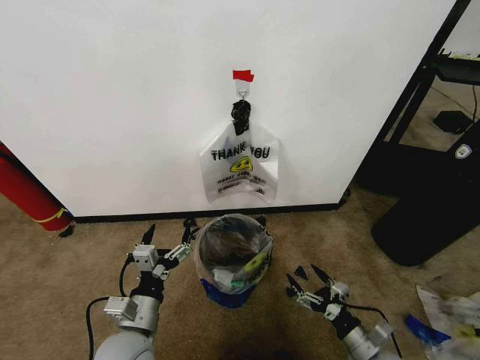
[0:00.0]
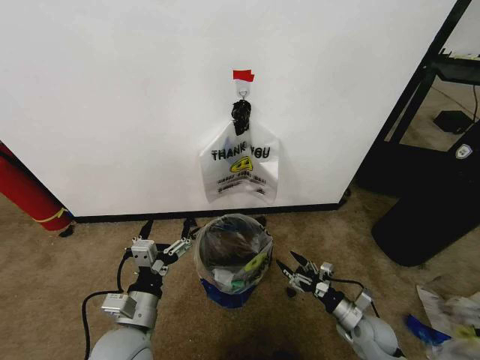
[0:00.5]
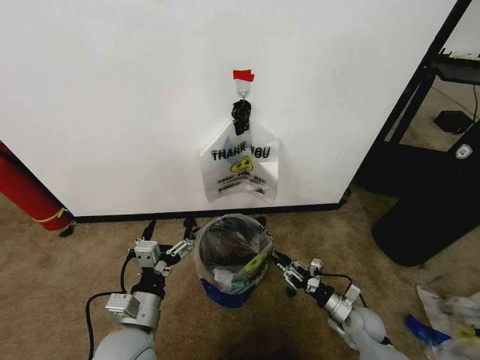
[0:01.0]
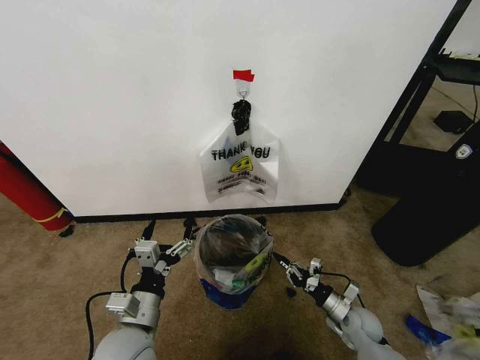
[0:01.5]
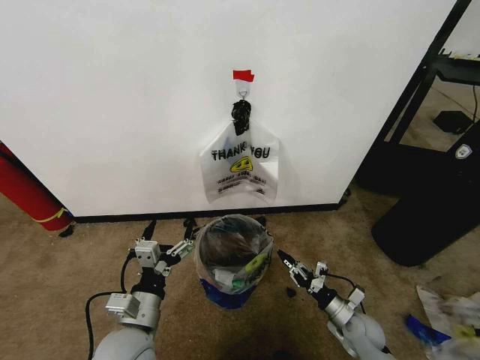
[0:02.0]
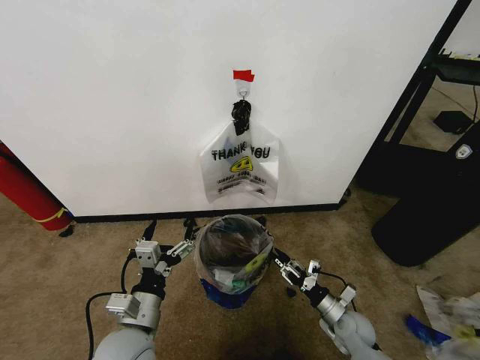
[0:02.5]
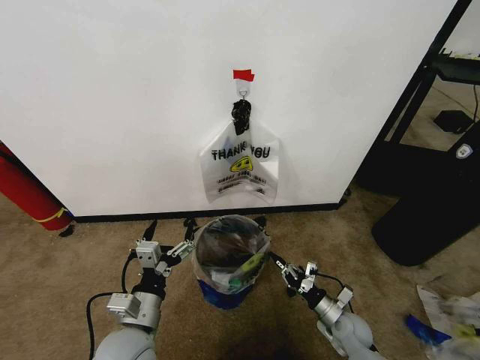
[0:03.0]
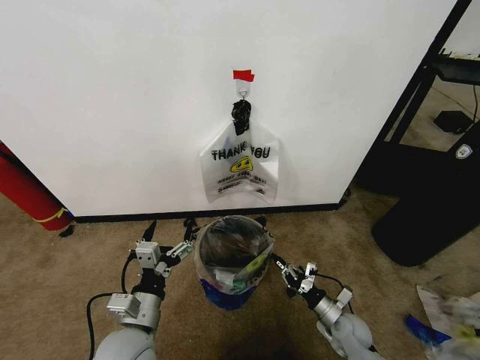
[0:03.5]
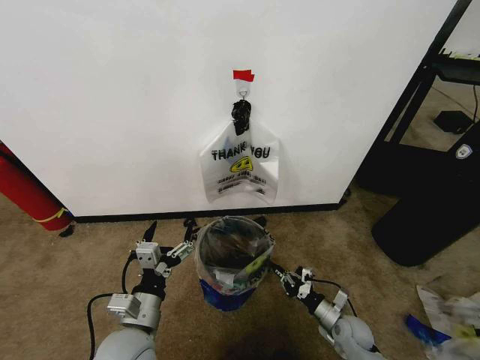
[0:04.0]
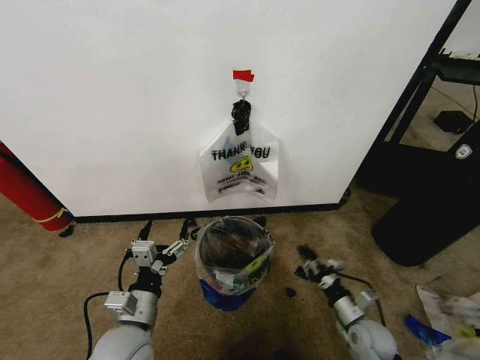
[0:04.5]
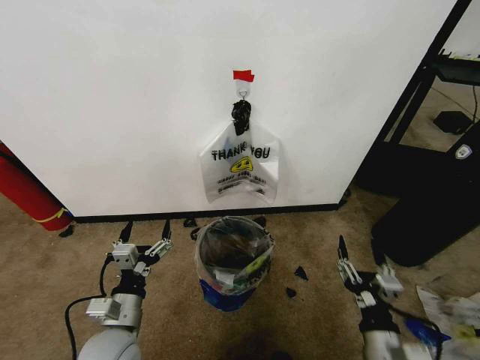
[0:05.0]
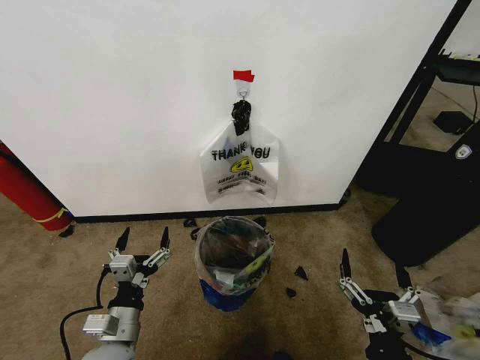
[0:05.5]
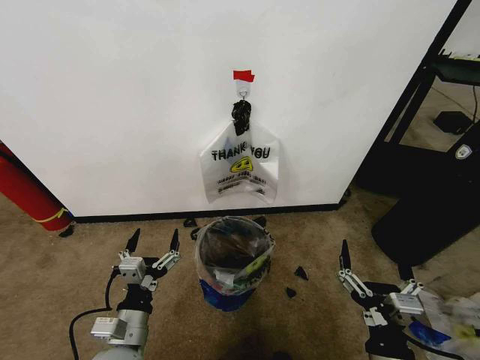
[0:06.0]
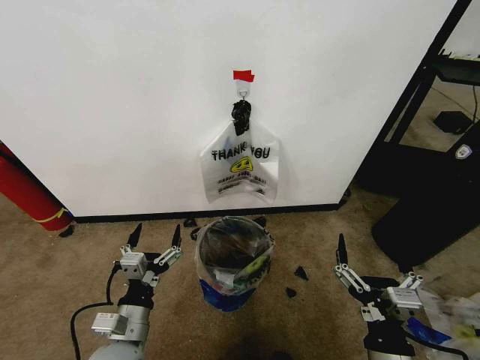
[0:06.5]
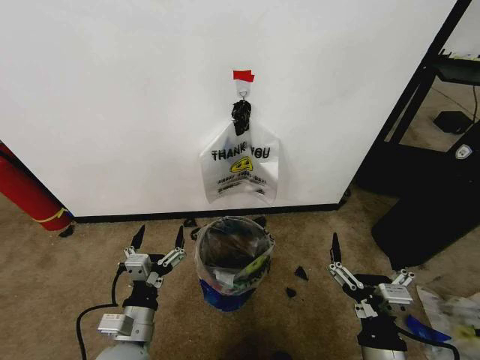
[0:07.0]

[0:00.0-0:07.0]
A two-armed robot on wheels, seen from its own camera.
Task of the whole recording: Pick up the garbage bag from the wall and place it over the trash bin.
0:00.0 to 0:02.0: The right gripper shifts some 10 cm forward and downward, and closes its fingers.
0:02.0 to 0:03.5: The grippers move only a little.
0:03.5 to 0:05.0: The right gripper goes roughly 25 cm upward and backward, and opens its fingers.
0:05.0 to 0:07.0: The right gripper changes place by some 5 cm.

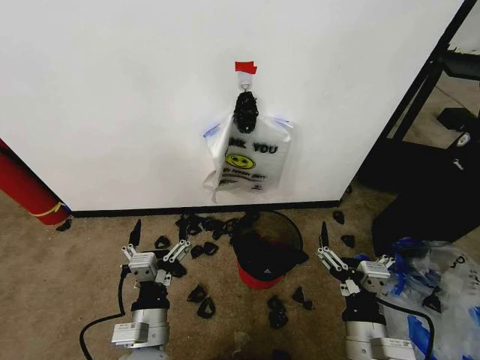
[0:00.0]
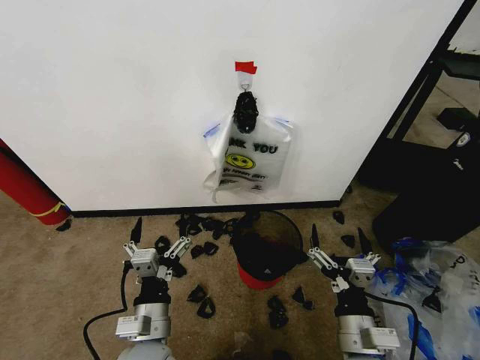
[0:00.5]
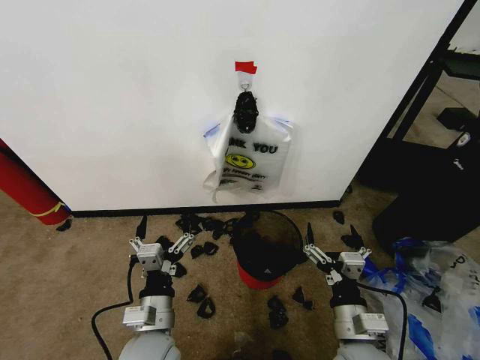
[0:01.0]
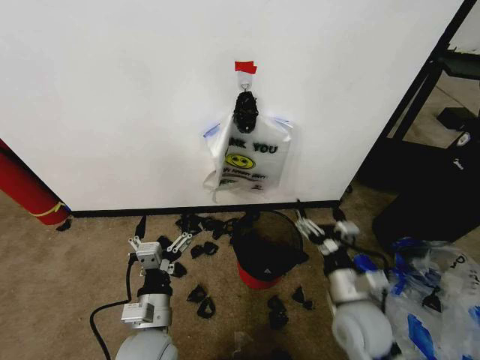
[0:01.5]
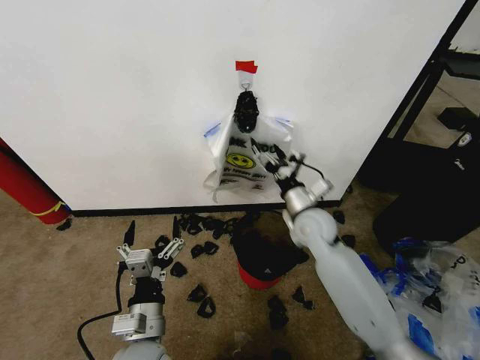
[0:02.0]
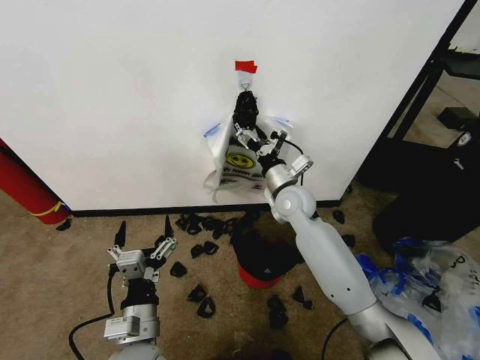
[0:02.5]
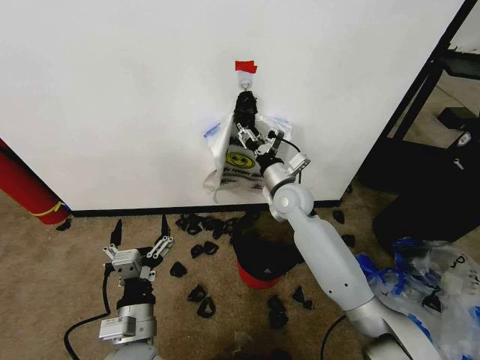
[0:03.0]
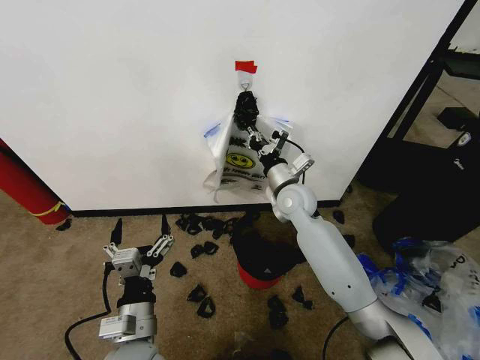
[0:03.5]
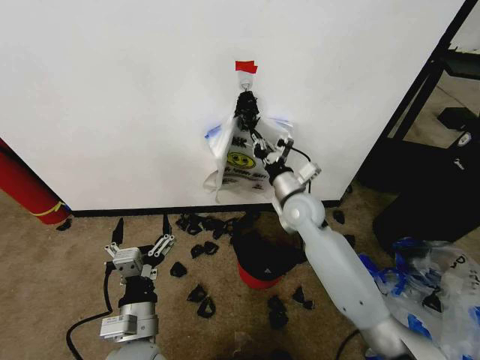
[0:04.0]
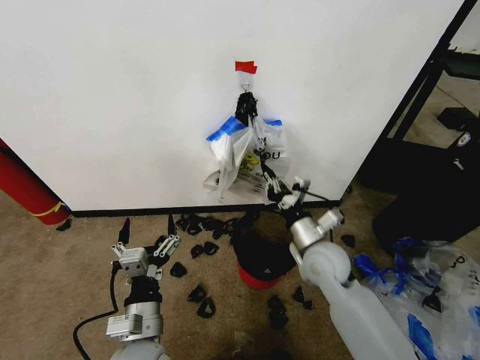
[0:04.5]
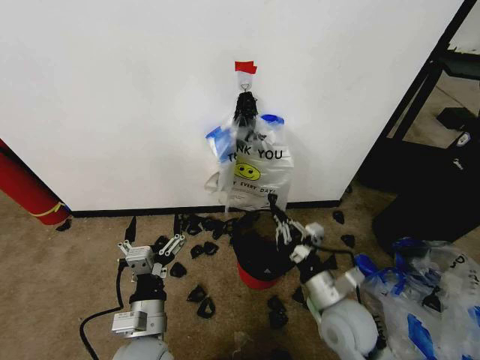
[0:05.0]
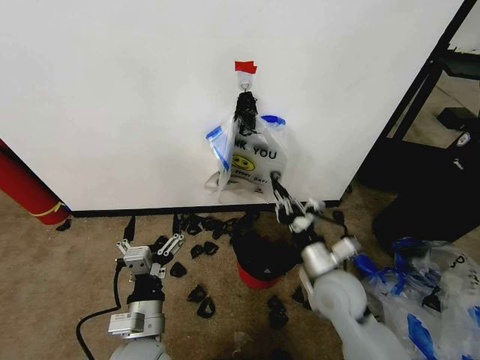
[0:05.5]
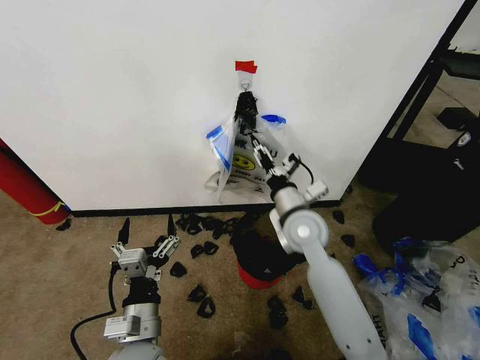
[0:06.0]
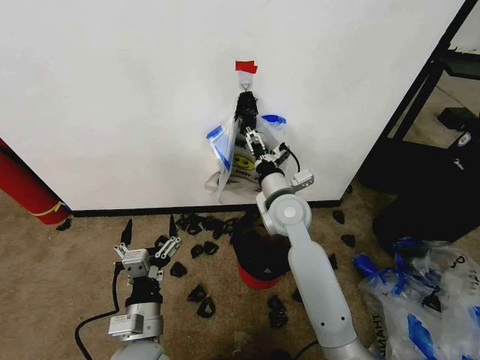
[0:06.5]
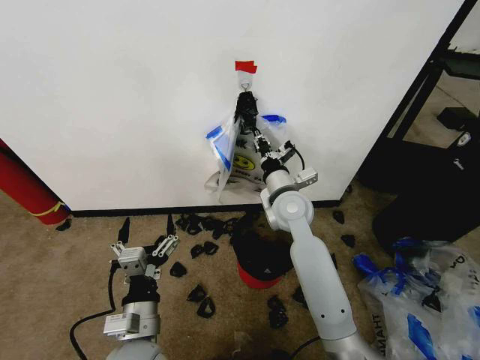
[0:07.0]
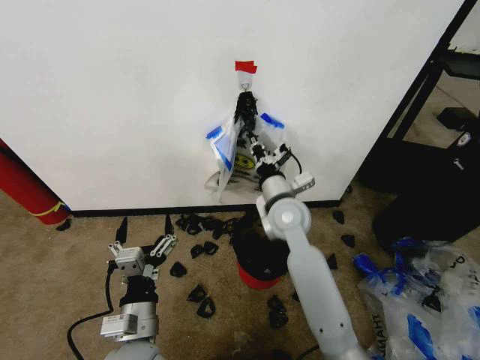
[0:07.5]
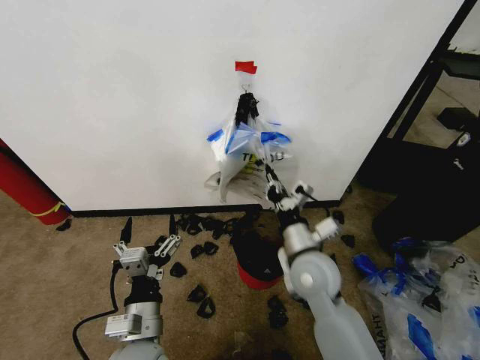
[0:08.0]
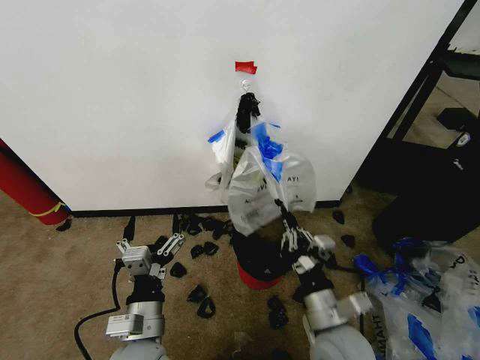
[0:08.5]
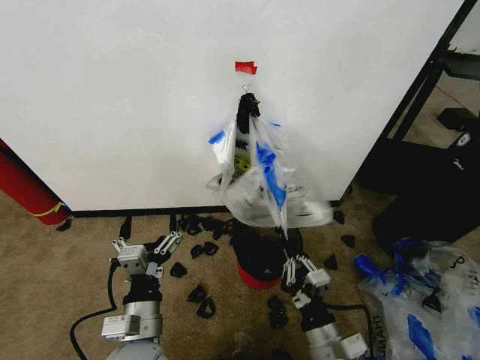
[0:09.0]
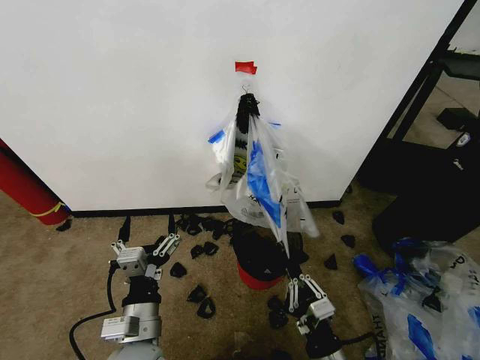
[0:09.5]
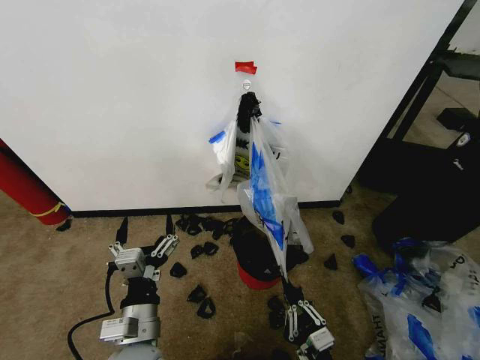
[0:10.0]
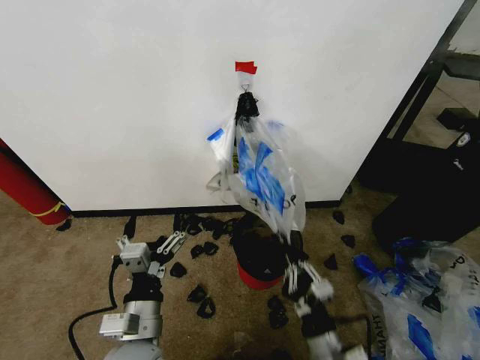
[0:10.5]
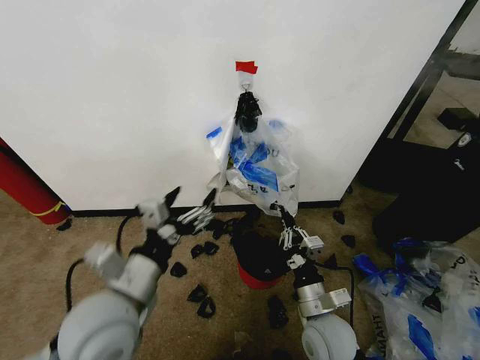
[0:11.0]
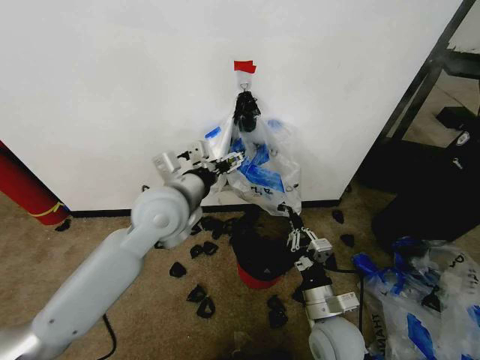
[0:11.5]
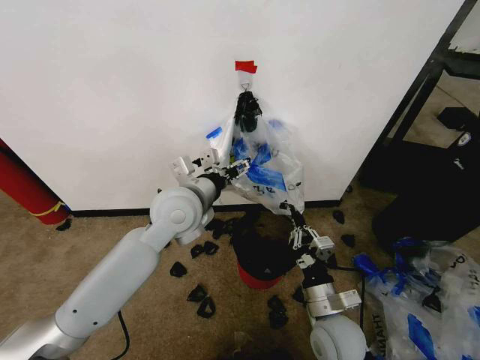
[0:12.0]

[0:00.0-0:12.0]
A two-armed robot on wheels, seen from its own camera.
Task of the whole recording: Pick up the garbage bag from the wall and place it over the trash bin.
0:02.0 to 0:04.0: The right gripper closes up.
0:04.0 to 0:06.0: The right gripper travels backward and back again, about 20 cm each way, and opens its fingers.
0:06.0 to 0:08.0: The right gripper heads backward, covering roughly 10 cm, and closes up.
0:08.0 to 0:10.0: The right gripper shifts about 25 cm backward and downward.
0:10.0 to 0:12.0: The left gripper moves forward and upward, roughly 25 cm, while the right gripper moves forward and upward, about 15 cm.

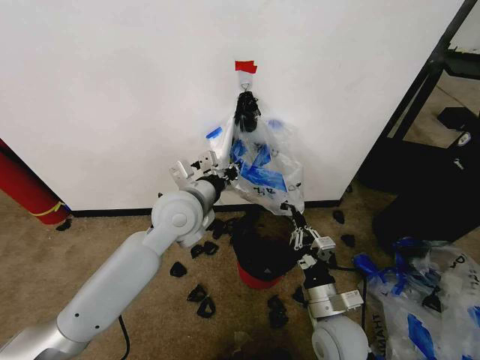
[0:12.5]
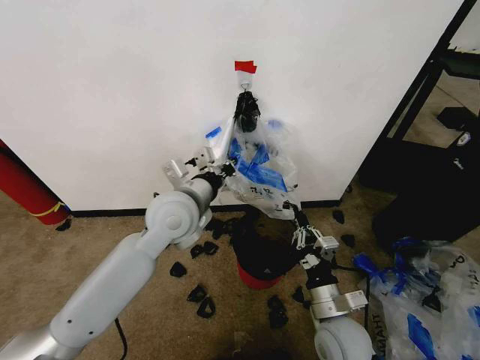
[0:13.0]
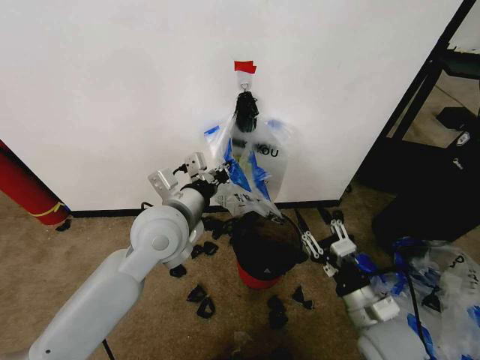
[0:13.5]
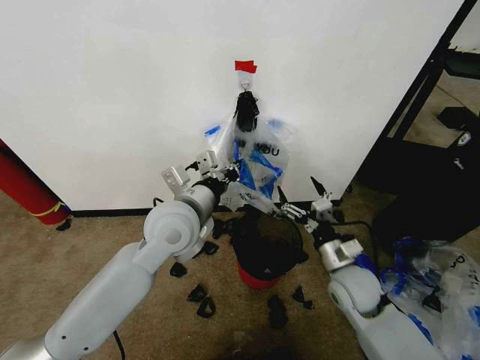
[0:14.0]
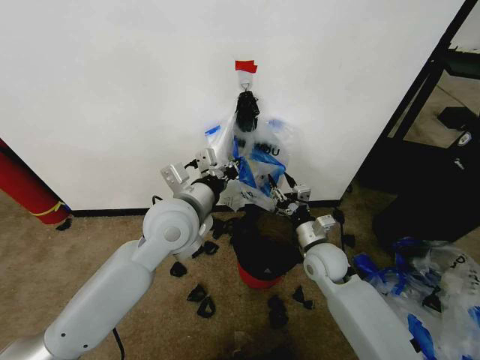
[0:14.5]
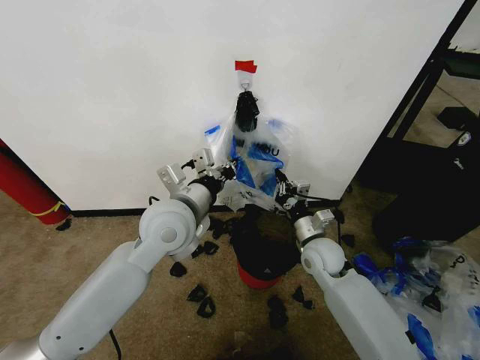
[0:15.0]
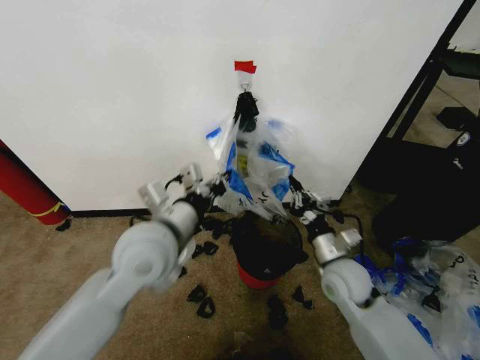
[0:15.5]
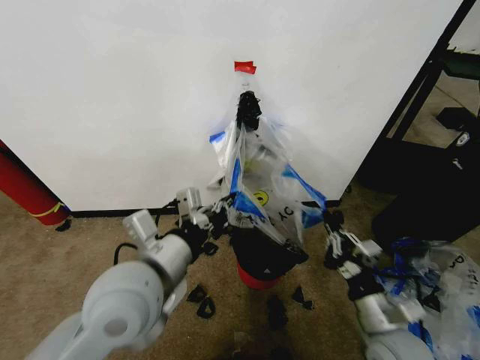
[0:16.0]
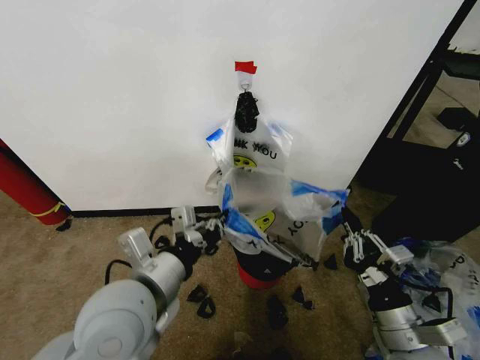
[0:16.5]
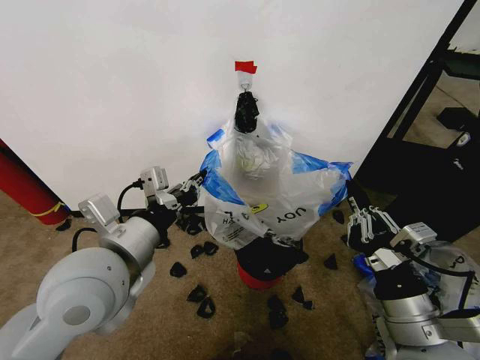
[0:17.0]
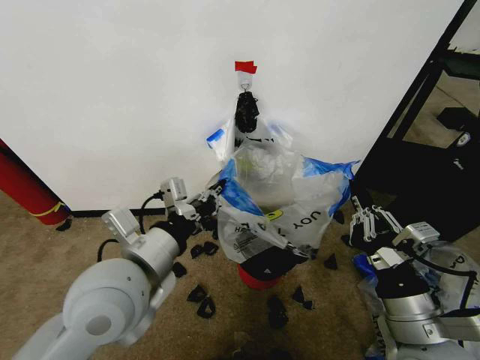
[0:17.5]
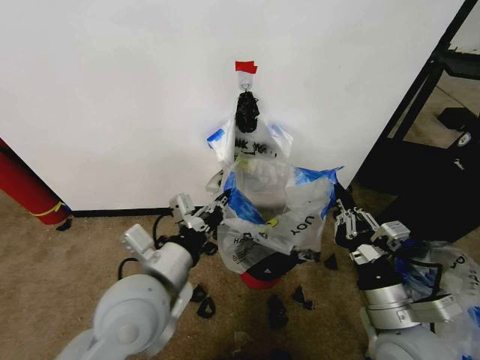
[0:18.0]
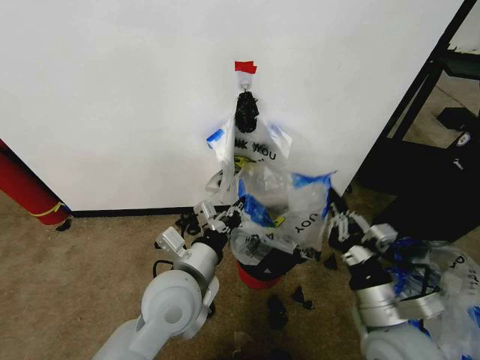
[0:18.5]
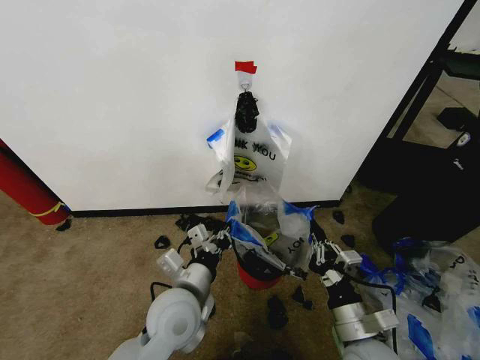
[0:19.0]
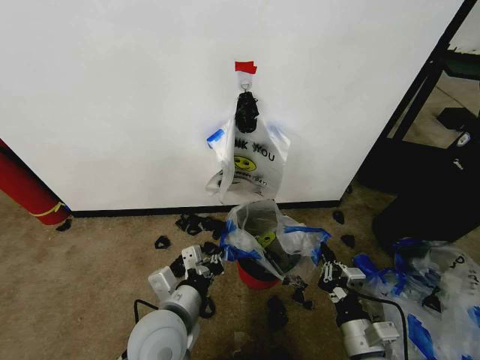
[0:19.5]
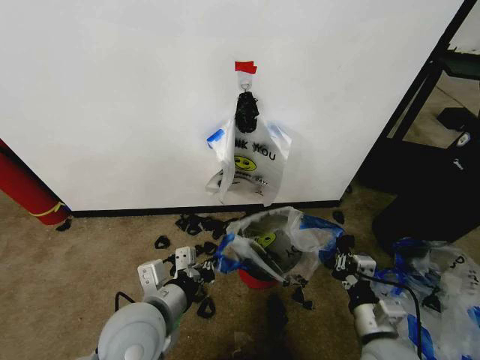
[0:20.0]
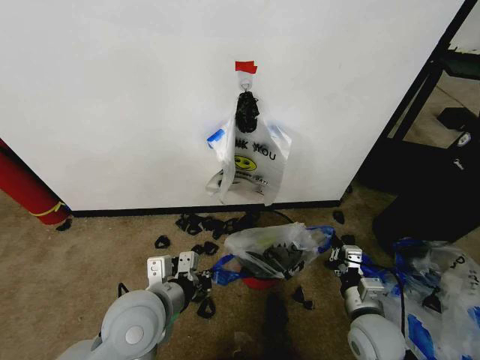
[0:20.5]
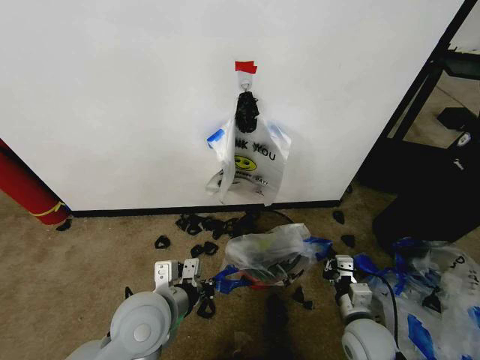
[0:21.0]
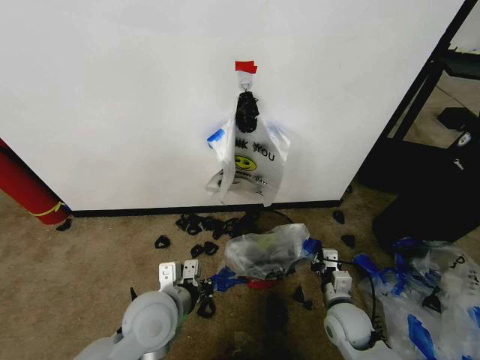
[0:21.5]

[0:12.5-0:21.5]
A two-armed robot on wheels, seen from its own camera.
Task of the whole recording: Pick up the garbage bag from the wall and place it over the trash bin.
0:12.5 to 0:14.5: The right gripper is displaced forward by some 15 cm, and opens up.
0:14.5 to 0:17.0: The left gripper is displaced backward and to the left by some 15 cm. The right gripper shifts about 25 cm backward and upward, and closes its fingers.
0:17.0 to 0:19.5: The grippers both shift downward by approximately 15 cm.
0:19.5 to 0:21.5: The right gripper heads forward and downward, covering approximately 15 cm.
